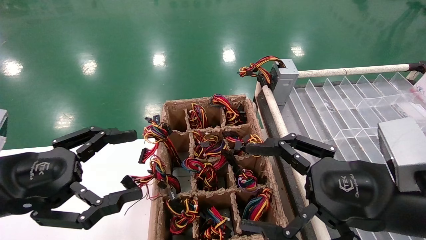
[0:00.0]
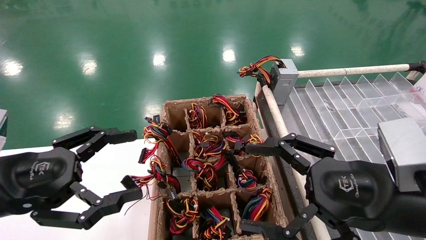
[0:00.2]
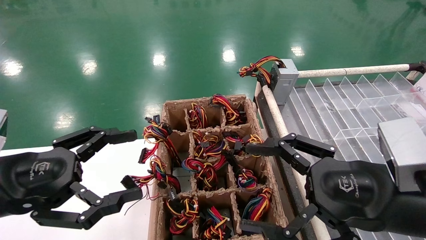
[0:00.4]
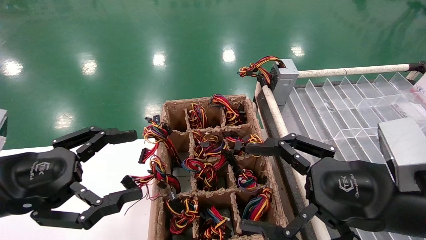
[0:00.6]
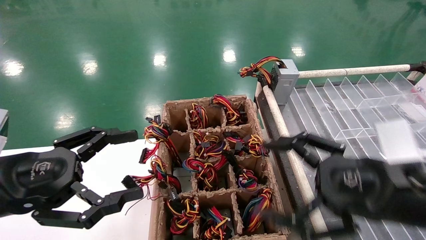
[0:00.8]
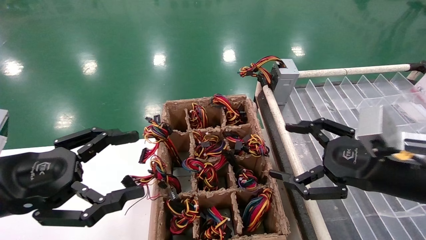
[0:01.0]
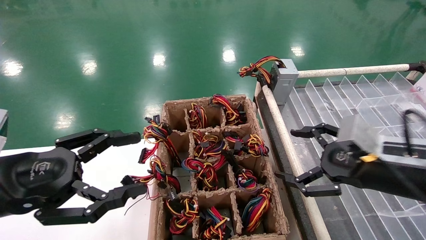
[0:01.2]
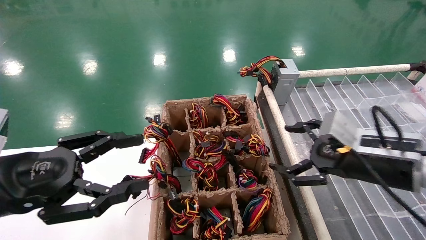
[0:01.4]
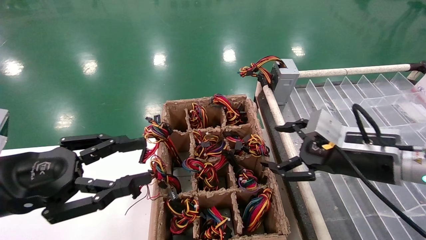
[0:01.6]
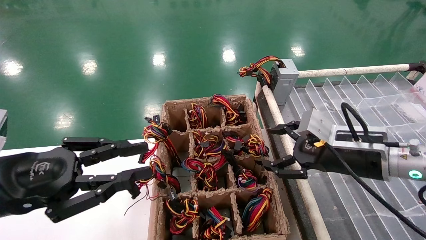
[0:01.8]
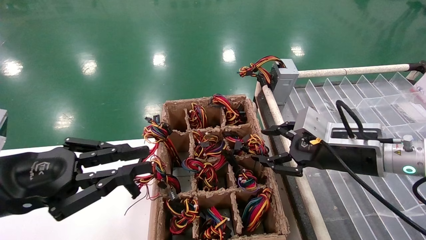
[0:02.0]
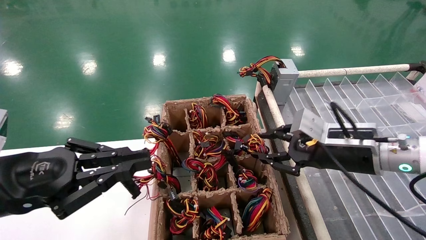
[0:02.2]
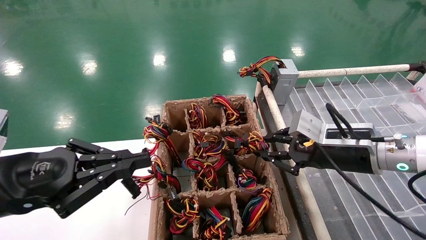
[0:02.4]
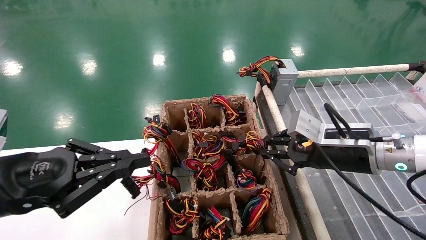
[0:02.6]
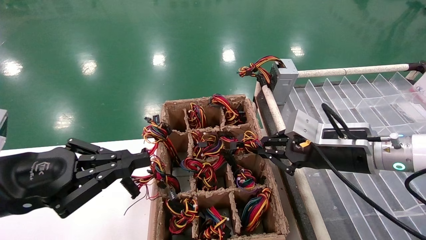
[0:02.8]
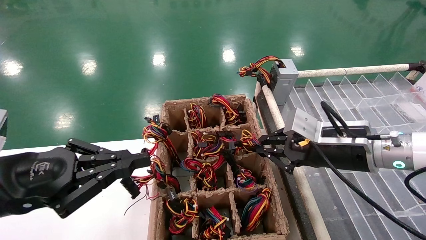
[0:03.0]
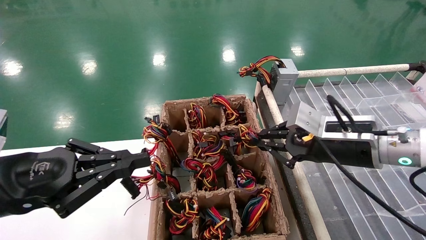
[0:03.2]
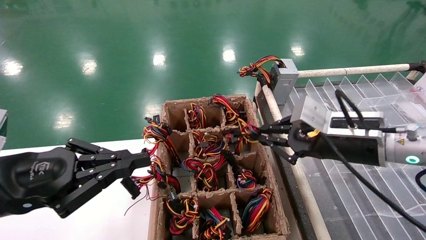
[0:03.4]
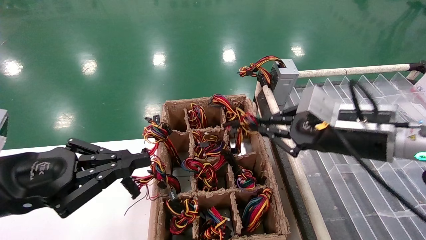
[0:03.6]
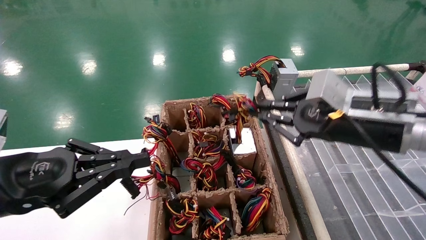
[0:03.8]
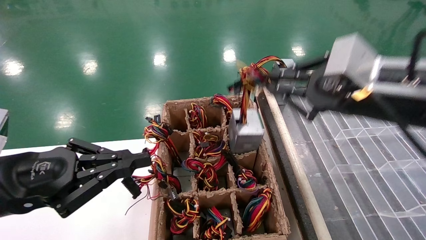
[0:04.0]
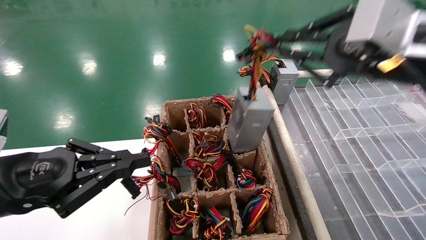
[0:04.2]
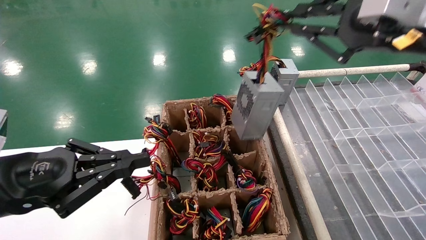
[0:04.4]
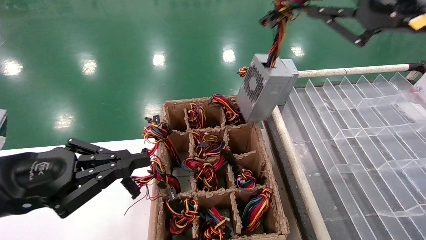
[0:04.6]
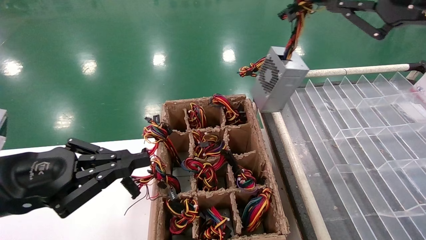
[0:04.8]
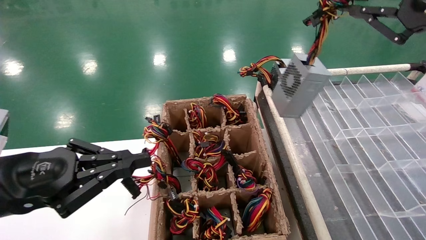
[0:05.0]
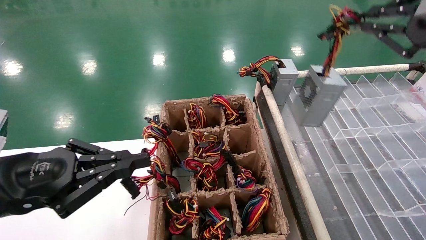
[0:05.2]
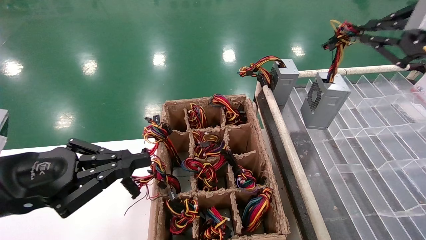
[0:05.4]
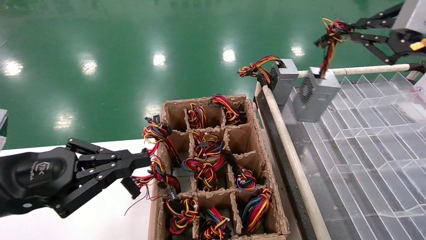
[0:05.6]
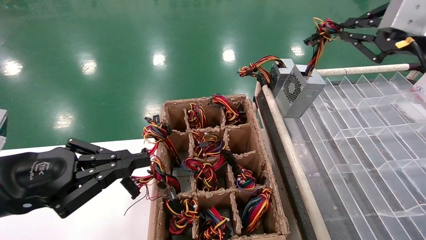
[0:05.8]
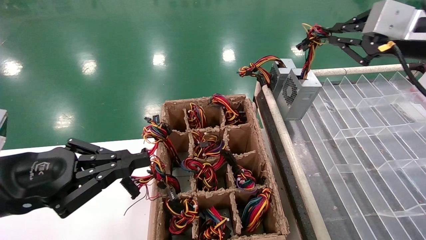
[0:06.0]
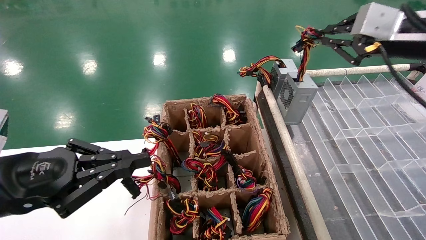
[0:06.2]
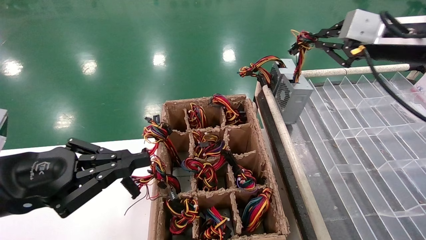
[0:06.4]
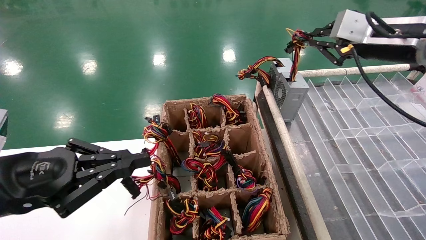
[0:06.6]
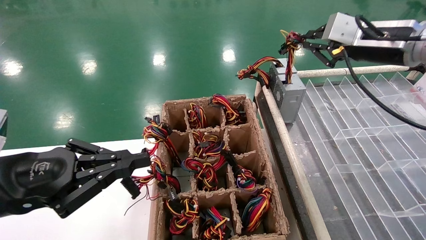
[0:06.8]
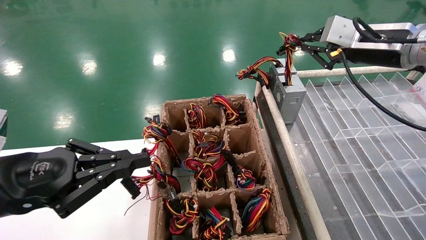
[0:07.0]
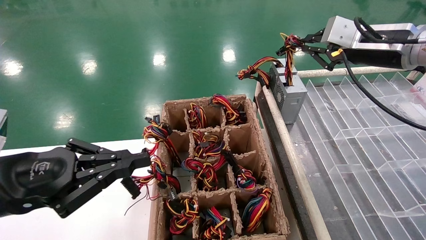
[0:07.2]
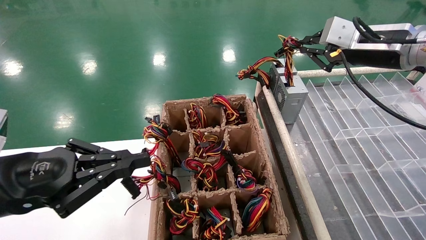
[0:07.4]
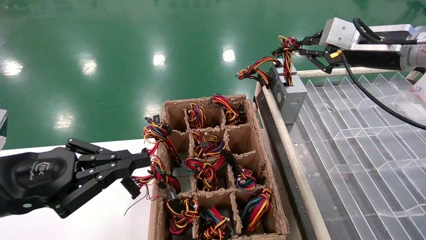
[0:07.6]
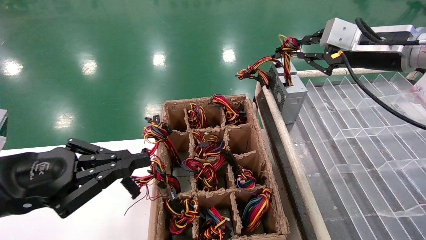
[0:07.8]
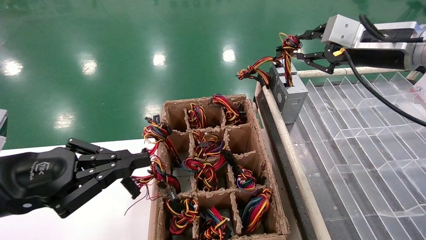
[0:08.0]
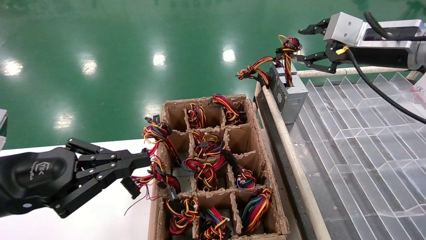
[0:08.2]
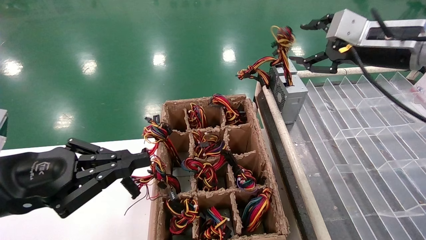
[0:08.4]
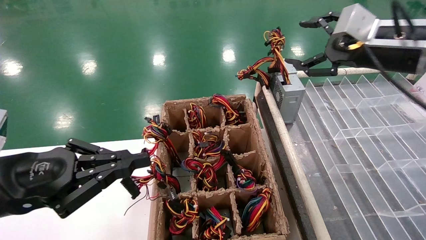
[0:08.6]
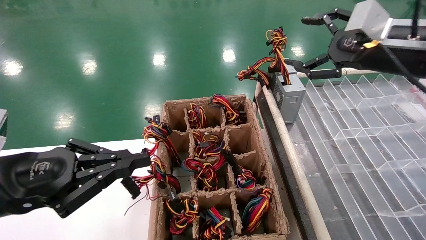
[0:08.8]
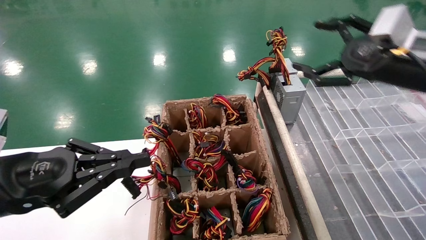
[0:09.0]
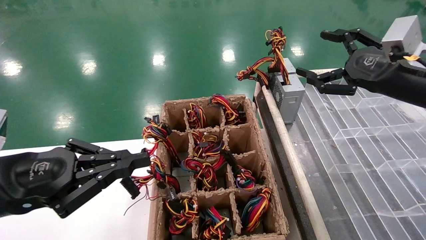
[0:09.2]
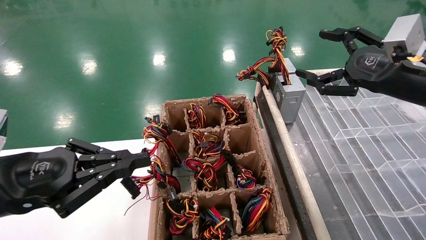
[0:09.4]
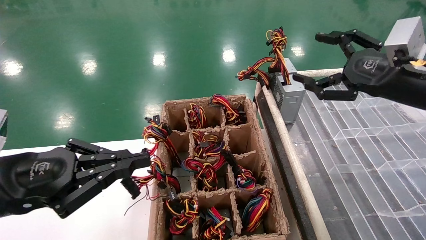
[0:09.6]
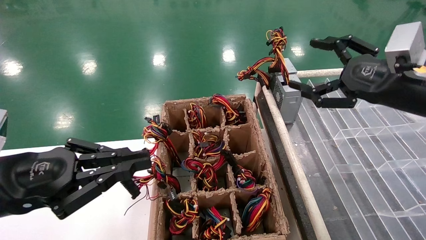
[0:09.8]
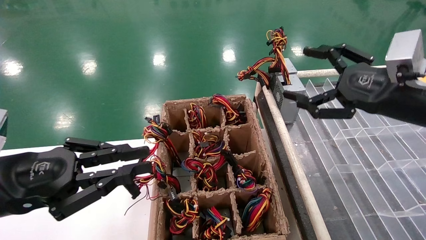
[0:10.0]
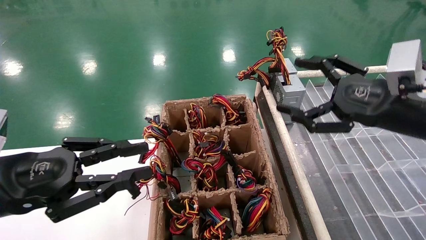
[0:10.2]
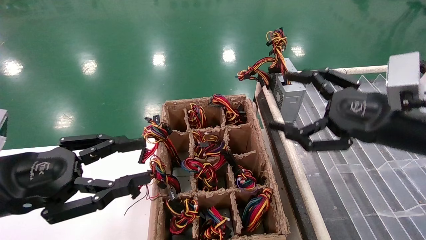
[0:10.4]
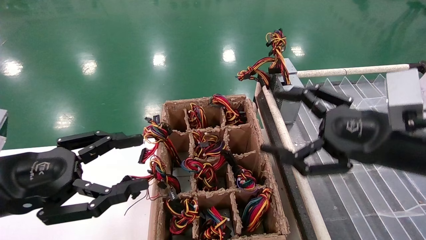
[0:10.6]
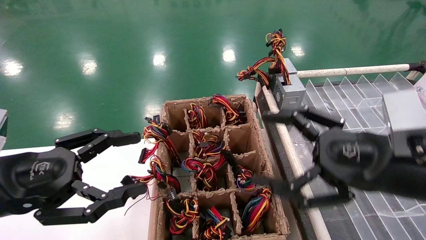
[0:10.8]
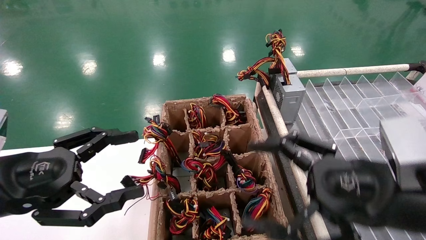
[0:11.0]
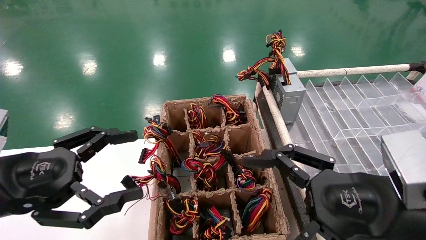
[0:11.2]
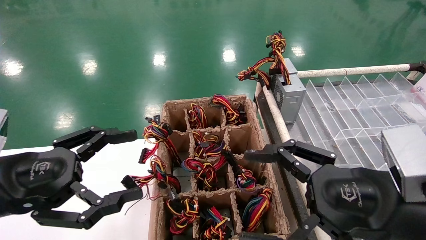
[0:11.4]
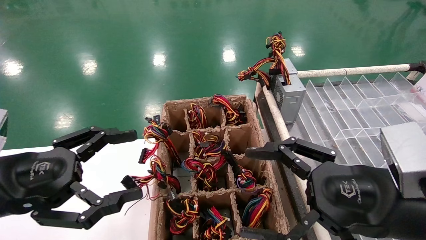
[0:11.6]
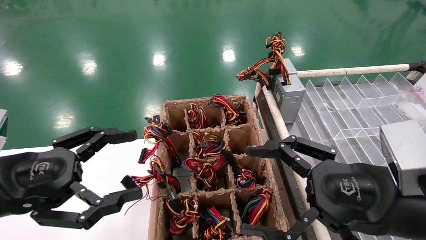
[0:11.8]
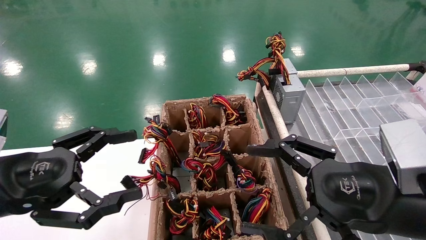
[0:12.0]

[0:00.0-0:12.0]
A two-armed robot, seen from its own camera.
Step, 0:01.2 to 0:02.8: Grab the main unit power supply from the containment box.
Step, 0:03.0 to 0:08.4: Place the main unit power supply in the designated area.
0:00.0 to 0:01.6: The right gripper heads forward, covering some 10 cm. The left gripper closes up.
0:01.6 to 0:03.0: The left gripper closes up. The right gripper closes its fingers.
0:03.0 to 0:04.4: The right gripper moves upward and backward, roughly 20 cm.
0:04.4 to 0:06.0: The right gripper goes roughly 15 cm forward and to the right.
0:06.0 to 0:07.6: The right gripper heads forward, covering about 5 cm.
0:07.6 to 0:09.0: The right gripper moves backward, some 5 cm, and opens its fingers.
0:09.0 to 0:10.4: The right gripper travels downward and backward by approximately 10 cm.
0:10.4 to 0:12.0: The left gripper opens. Meanwhile the right gripper moves backward, to the left and downward, some 10 cm.

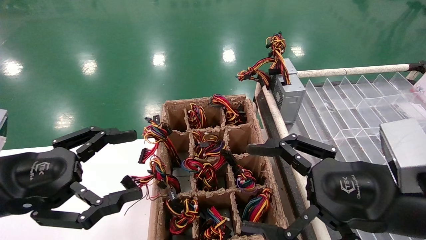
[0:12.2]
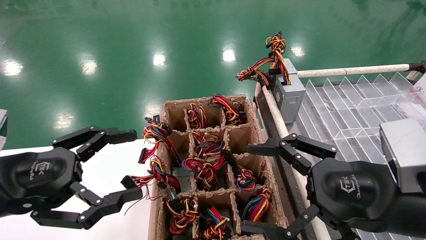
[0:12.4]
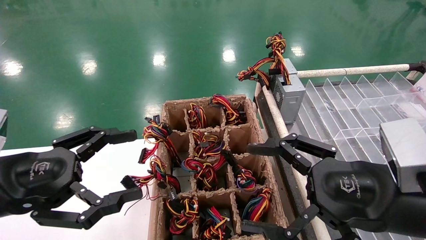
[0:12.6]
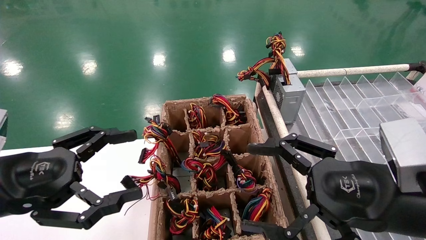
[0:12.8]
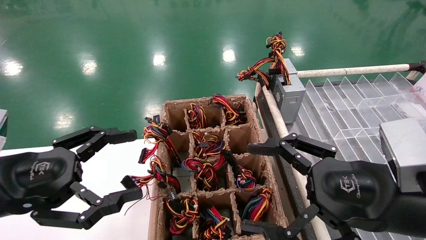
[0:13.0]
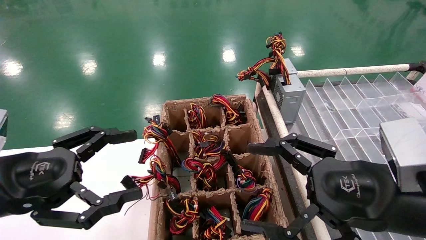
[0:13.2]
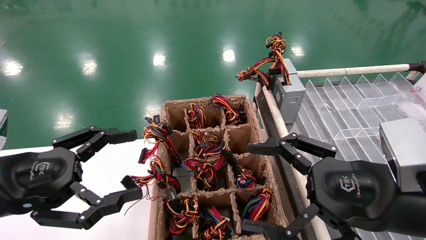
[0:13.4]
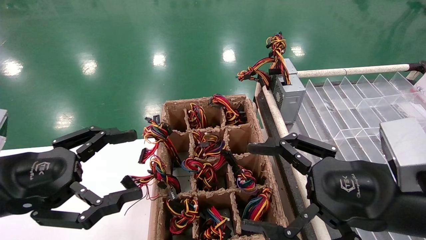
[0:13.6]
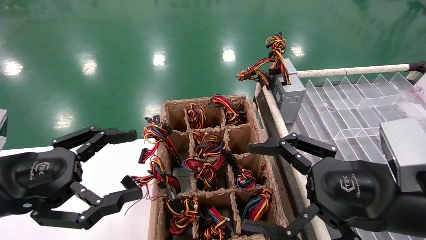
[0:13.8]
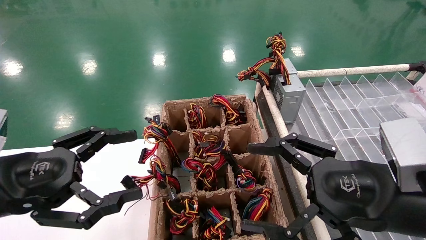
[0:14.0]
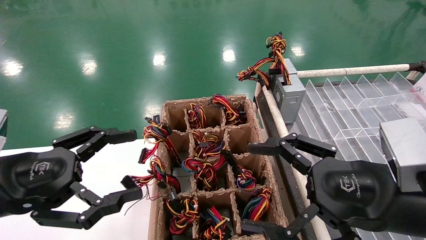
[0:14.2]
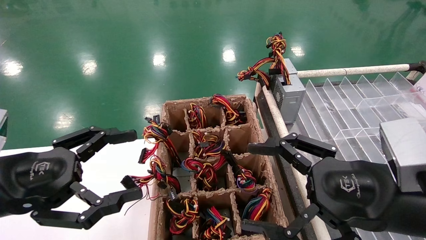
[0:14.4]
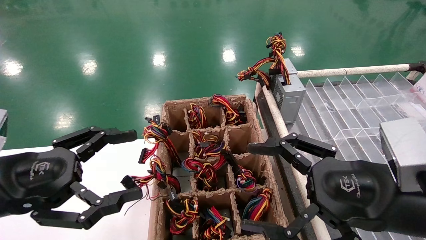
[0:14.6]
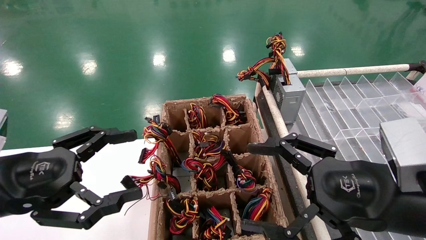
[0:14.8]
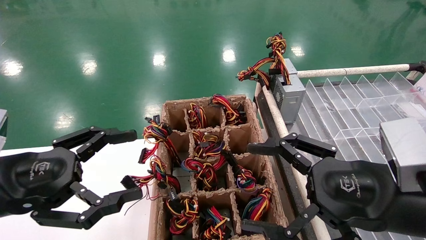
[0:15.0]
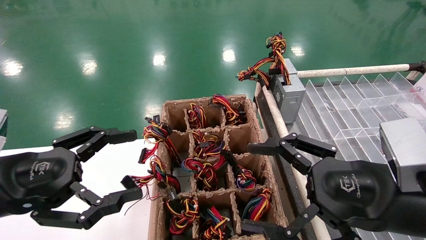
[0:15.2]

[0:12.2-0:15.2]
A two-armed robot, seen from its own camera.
0:12.2 to 0:15.2: The two grippers keep their place.
